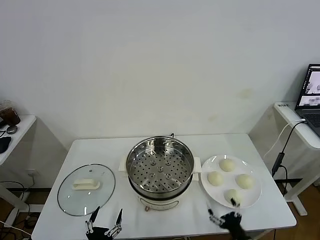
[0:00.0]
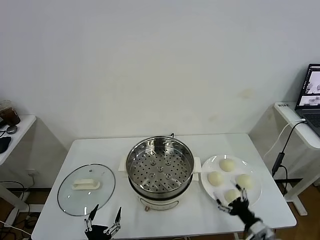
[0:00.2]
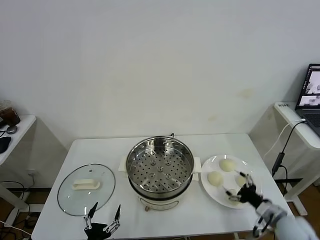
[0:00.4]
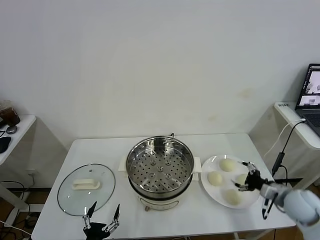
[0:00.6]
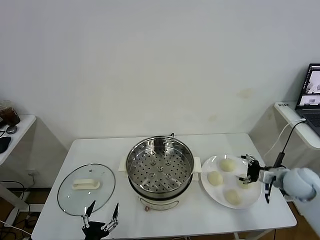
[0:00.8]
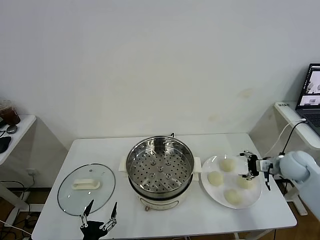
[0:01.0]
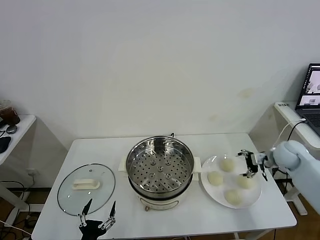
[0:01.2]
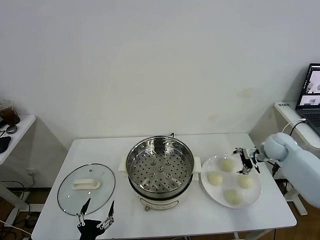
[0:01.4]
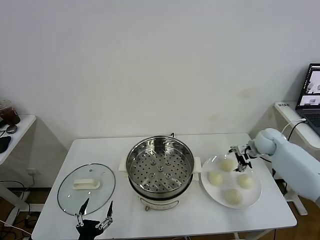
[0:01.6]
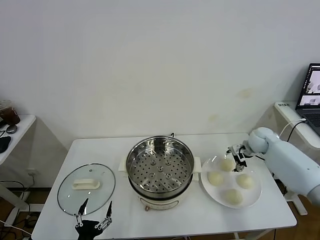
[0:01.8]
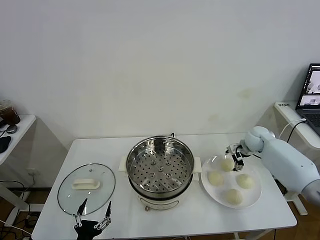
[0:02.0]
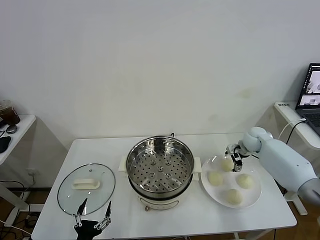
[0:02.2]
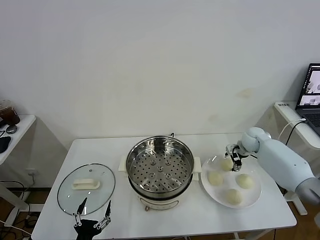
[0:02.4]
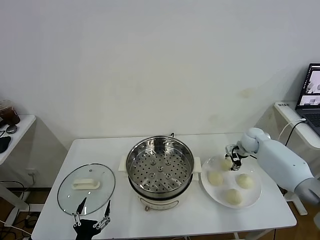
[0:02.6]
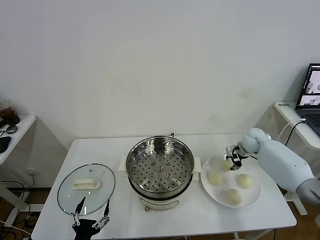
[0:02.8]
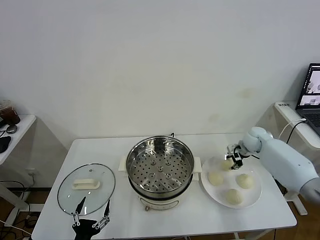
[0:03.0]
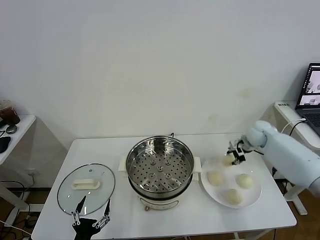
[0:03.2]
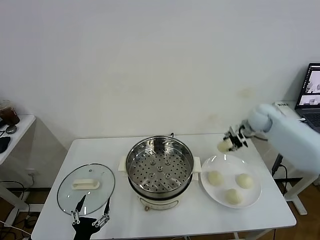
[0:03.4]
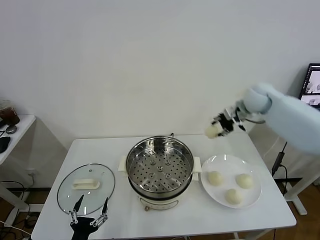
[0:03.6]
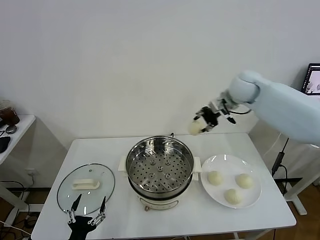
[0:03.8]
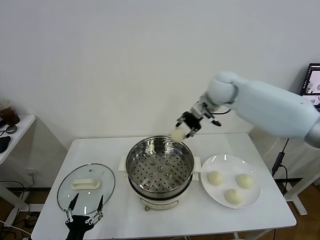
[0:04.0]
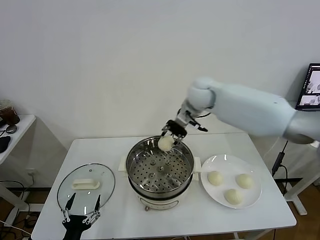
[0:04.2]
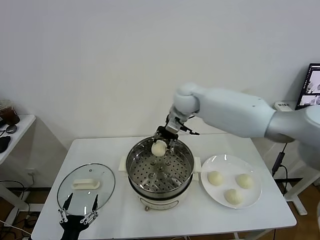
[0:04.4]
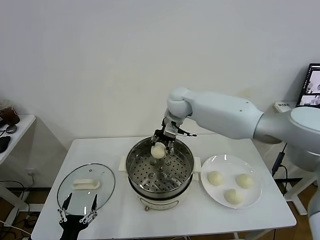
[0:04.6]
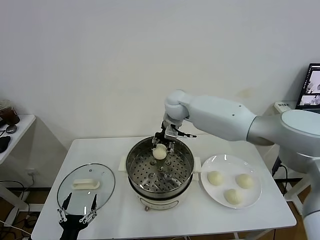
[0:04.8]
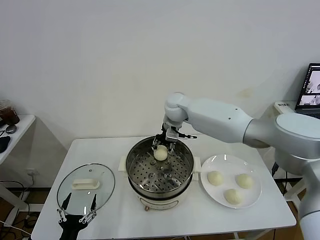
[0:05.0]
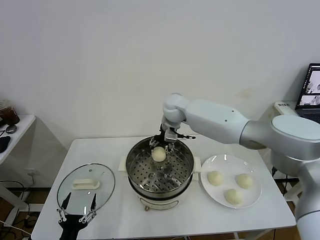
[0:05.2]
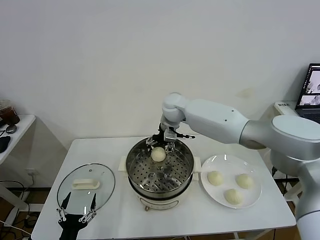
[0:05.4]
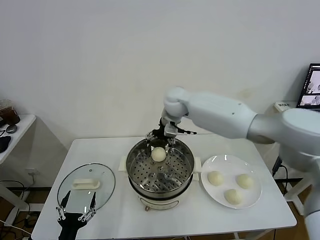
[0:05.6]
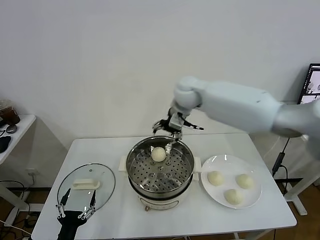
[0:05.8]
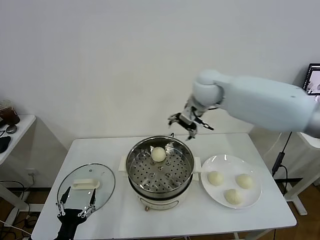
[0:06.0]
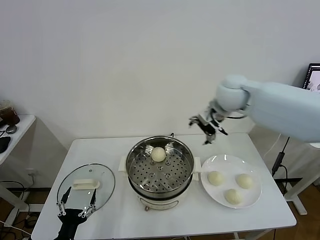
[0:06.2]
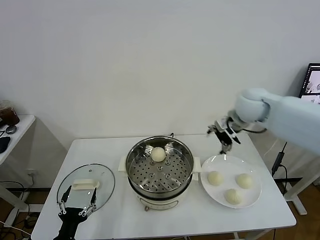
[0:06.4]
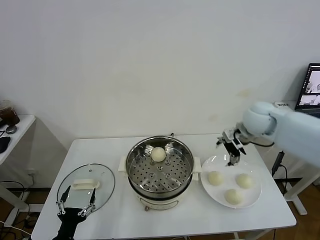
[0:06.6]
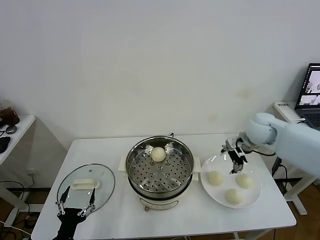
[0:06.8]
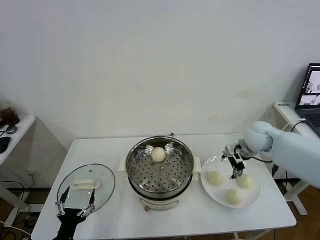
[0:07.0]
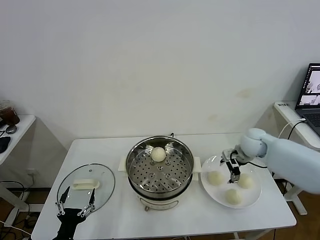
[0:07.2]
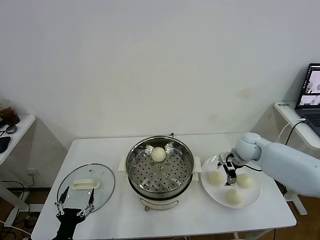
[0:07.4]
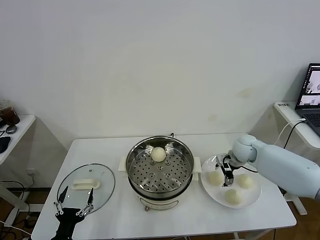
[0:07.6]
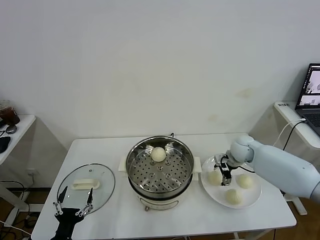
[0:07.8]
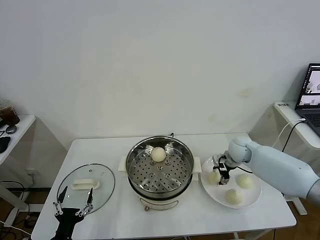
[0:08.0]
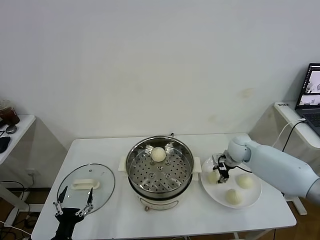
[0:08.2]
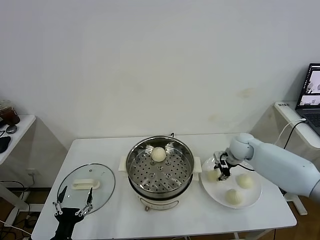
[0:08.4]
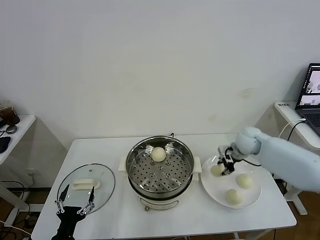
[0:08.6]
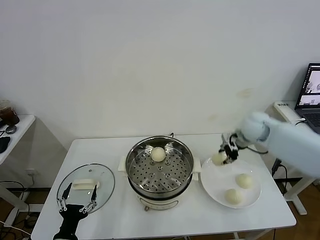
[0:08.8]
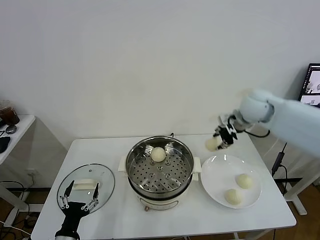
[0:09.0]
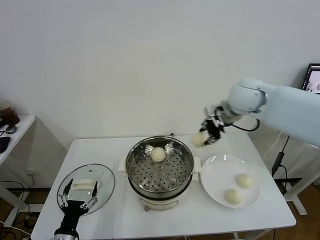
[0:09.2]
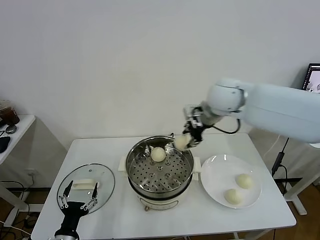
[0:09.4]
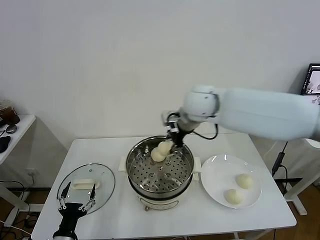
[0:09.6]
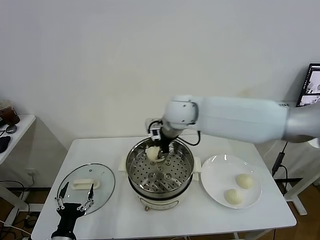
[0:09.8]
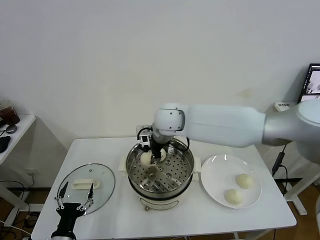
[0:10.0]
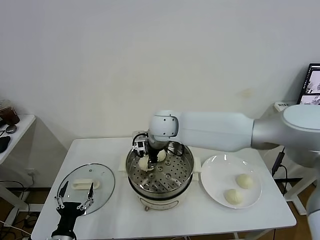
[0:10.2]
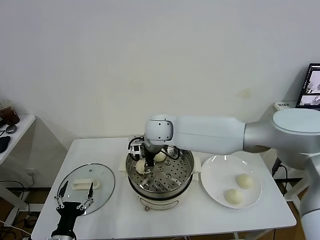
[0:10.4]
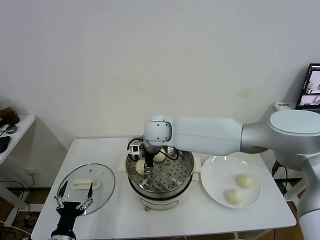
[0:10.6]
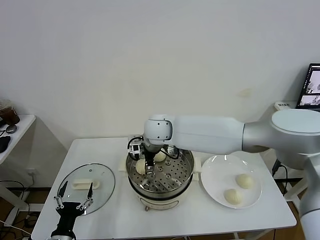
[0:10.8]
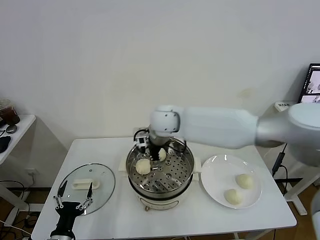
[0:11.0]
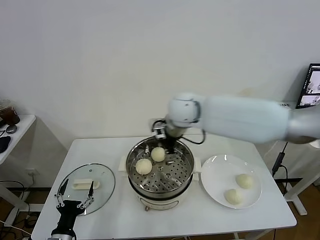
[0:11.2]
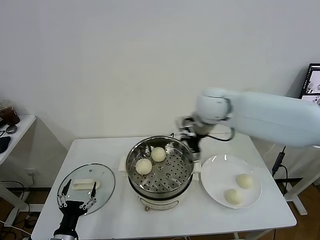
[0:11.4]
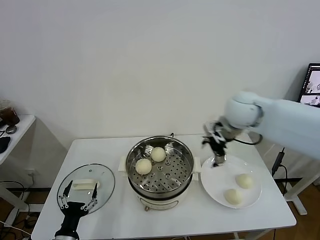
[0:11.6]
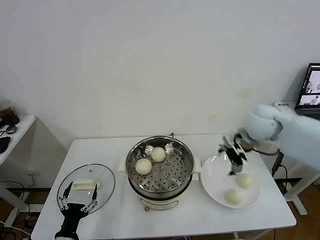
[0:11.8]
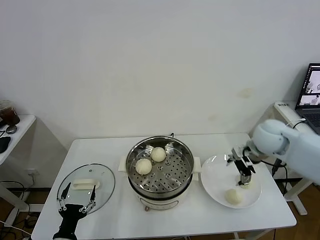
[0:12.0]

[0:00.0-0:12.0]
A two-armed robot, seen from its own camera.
Task of the whole recording: take steamed baozi put them in steamer.
Step, 0:00.0 to 0:02.8: Grasp the baozi in the plate with right gripper.
Step, 0:03.0 to 0:05.6: Place the baozi on the steamer with right gripper.
Step, 0:05.8 to 0:08.4: Grasp the baozi in the plate with right gripper.
Step, 0:08.6 to 0:10.8: Place the baozi on the steamer with right gripper.
0:01.6 to 0:03.0: The right gripper closes its fingers.
0:03.0 to 0:04.4: The right gripper heads to the left and upward, covering approximately 35 cm.
0:04.4 to 0:06.0: The right gripper moves upward, roughly 5 cm, and opens up.
0:06.0 to 0:07.6: The right gripper is displaced downward and to the right by about 30 cm.
0:07.6 to 0:09.0: The right gripper travels upward by approximately 20 cm, and closes up.
0:09.0 to 0:10.4: The right gripper is displaced to the left by about 30 cm.
0:10.4 to 0:12.0: The right gripper goes about 35 cm to the right, and opens.

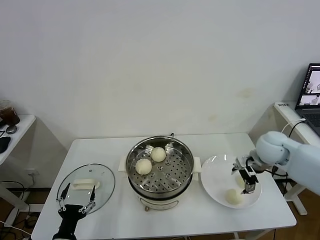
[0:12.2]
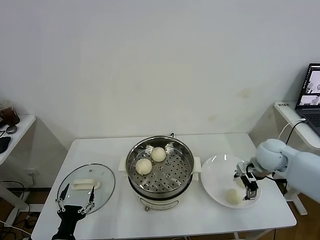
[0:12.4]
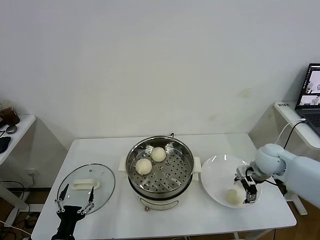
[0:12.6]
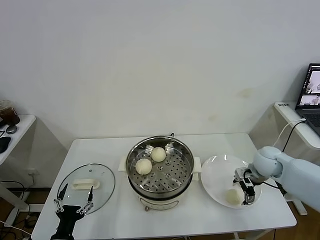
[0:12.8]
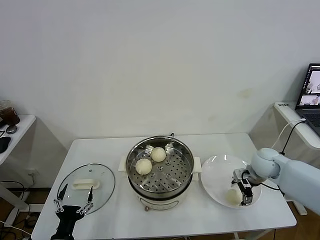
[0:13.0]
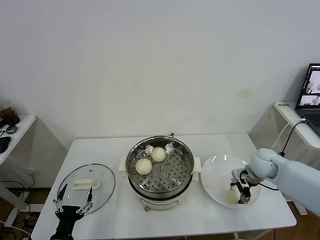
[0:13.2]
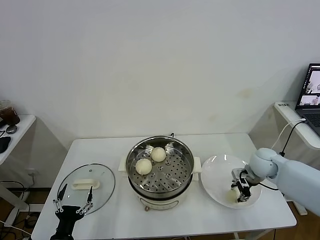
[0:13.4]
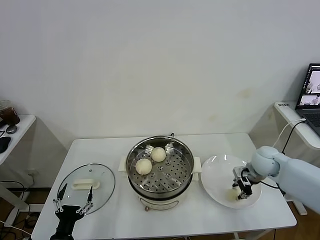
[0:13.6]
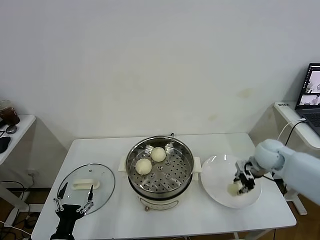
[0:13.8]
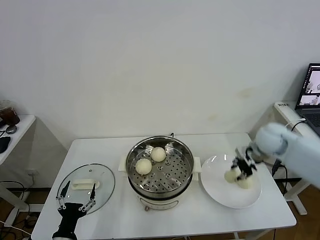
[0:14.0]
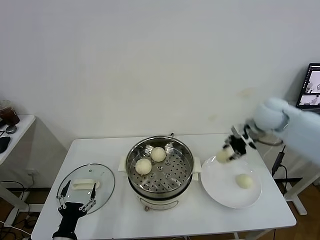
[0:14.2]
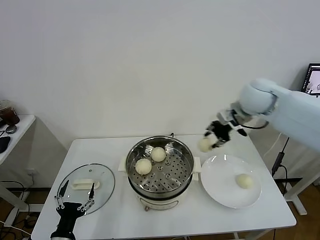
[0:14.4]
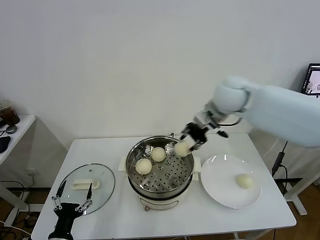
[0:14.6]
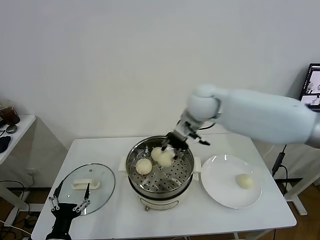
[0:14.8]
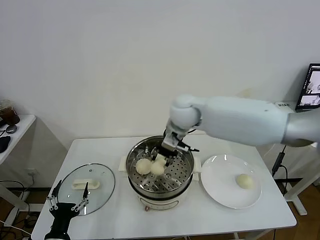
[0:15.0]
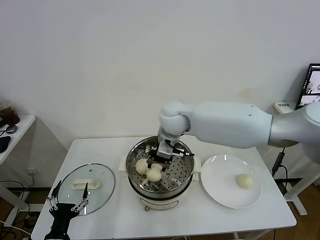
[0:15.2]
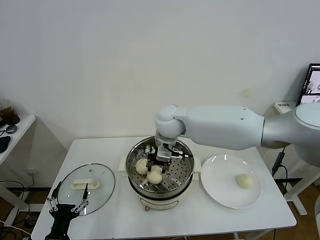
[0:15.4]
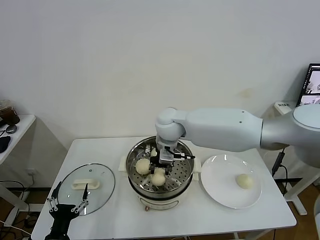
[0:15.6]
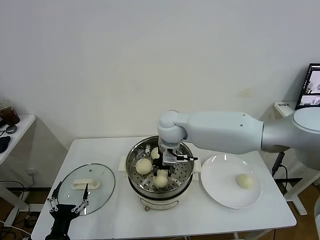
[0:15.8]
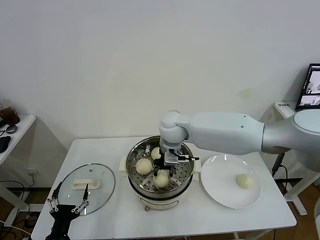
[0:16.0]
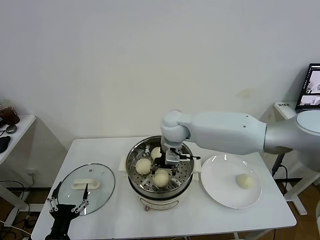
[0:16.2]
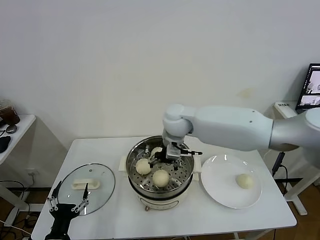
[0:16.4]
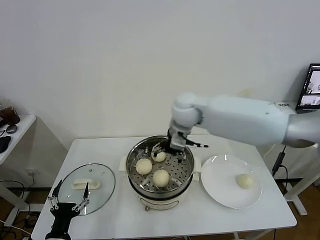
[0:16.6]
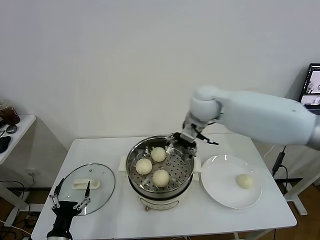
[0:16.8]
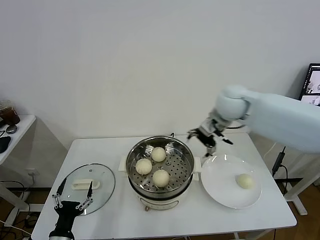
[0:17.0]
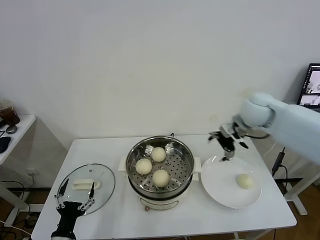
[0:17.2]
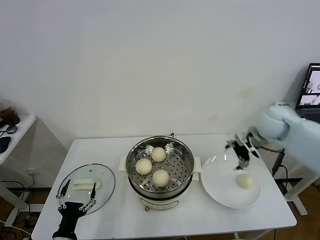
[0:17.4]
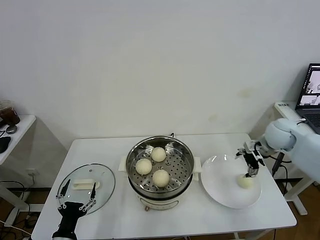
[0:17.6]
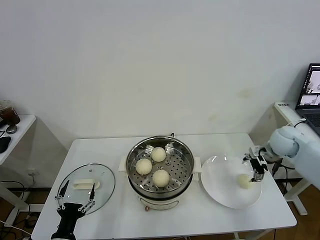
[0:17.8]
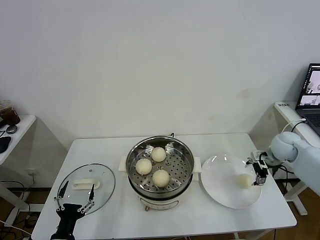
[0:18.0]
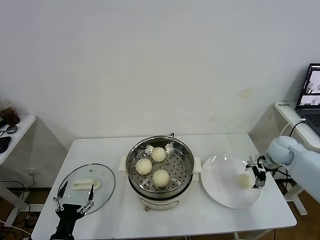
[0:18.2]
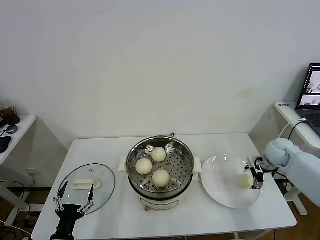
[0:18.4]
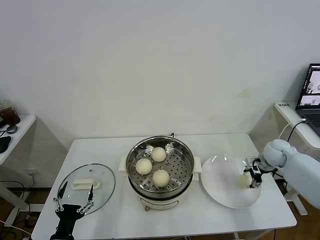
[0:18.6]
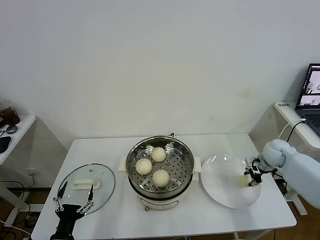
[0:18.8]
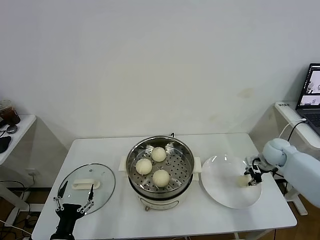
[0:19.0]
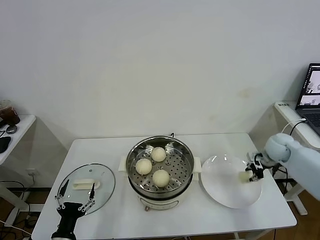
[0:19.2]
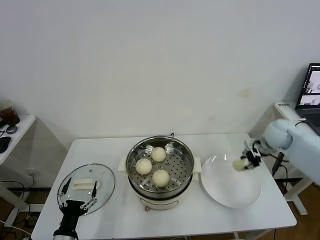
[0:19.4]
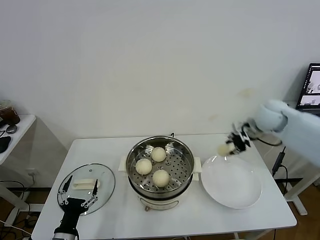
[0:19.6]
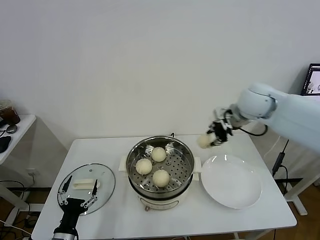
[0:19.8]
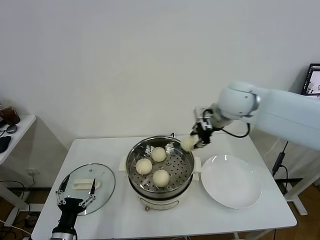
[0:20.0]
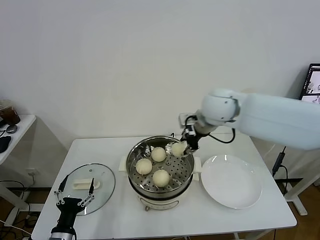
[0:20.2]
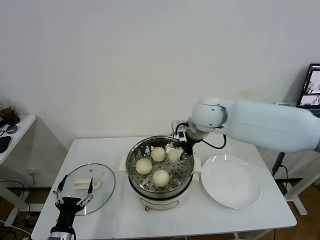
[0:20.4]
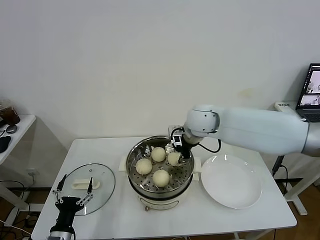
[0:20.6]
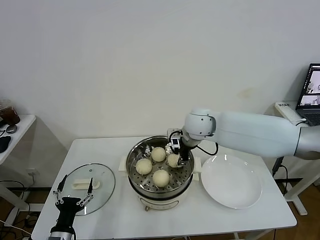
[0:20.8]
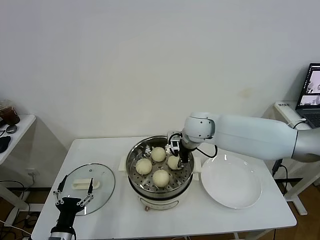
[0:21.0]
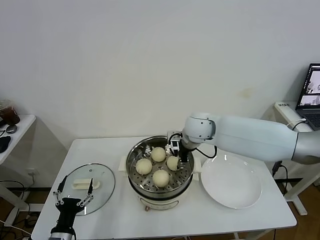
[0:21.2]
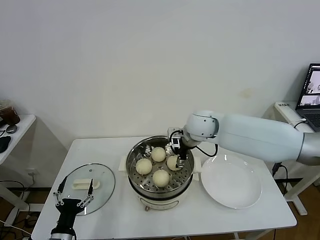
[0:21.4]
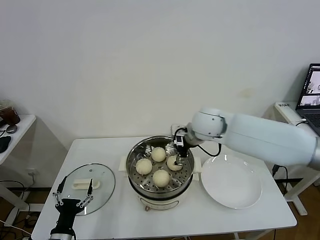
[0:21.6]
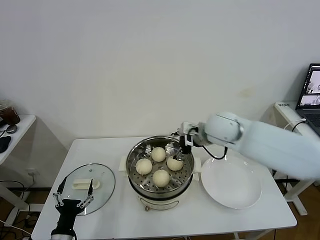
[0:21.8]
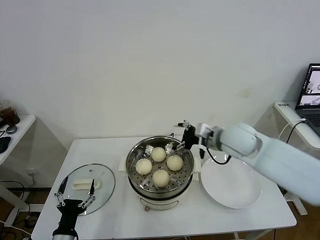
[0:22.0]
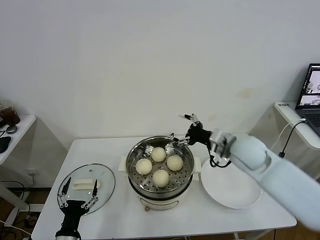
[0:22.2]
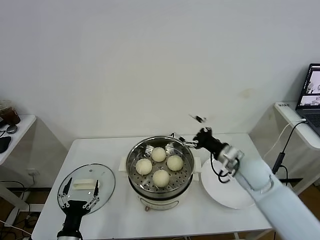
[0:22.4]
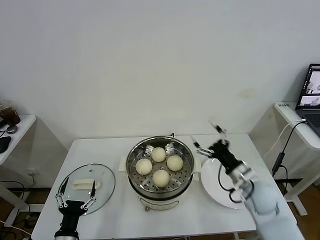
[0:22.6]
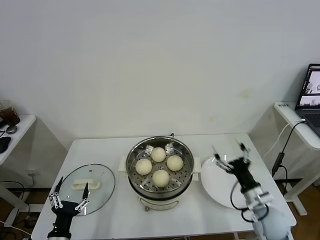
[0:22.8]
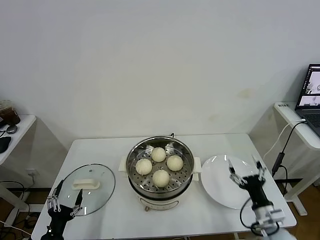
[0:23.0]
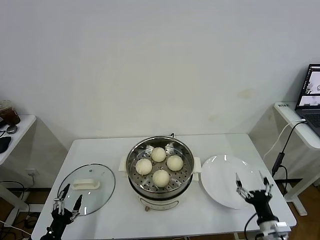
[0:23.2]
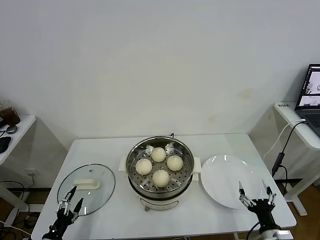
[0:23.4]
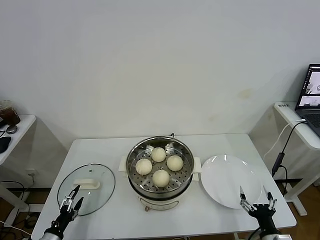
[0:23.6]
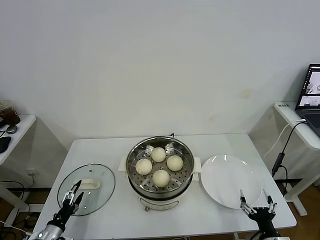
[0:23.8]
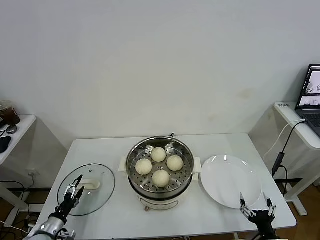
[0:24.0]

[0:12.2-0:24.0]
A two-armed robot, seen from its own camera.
Task of the whole recording: take steamed baozi put them in steamer.
Step, 0:13.6 to 0:16.2: Place the baozi on the steamer with right gripper.
Step, 0:16.6 to 0:18.8: Grasp the baozi in the plate with right gripper.
Step, 0:19.2 to 0:21.4: Place the baozi on the steamer with right gripper.
0:12.2 to 0:13.6: The right gripper shifts approximately 10 cm downward, and closes up.
0:13.6 to 0:15.2: The right gripper goes roughly 35 cm to the left and upward.
0:15.2 to 0:16.6: The right gripper opens its fingers.
0:16.6 to 0:18.2: The right gripper goes about 40 cm to the right and downward.
0:18.2 to 0:19.6: The right gripper goes some 15 cm upward and to the left, and closes its fingers.
0:19.6 to 0:21.0: The right gripper is displaced to the left by some 25 cm.
0:21.0 to 0:22.6: The right gripper shifts approximately 25 cm to the right, backward and downward, and opens its fingers.
0:22.6 to 0:24.0: The left gripper heads to the left, forward and downward, covering approximately 15 cm, while the right gripper travels backward and downward by some 25 cm.
